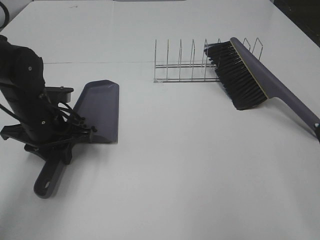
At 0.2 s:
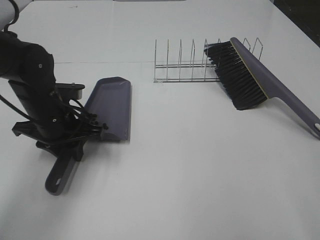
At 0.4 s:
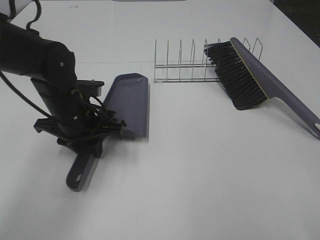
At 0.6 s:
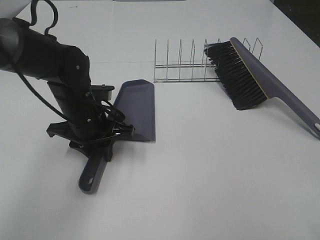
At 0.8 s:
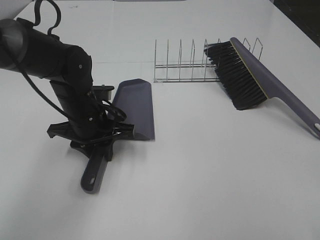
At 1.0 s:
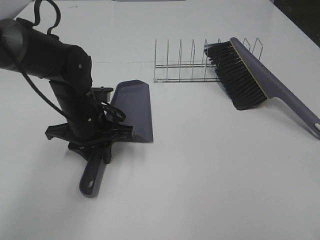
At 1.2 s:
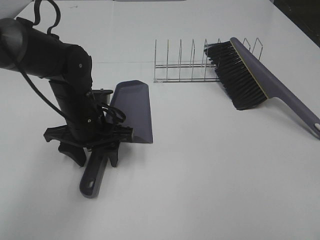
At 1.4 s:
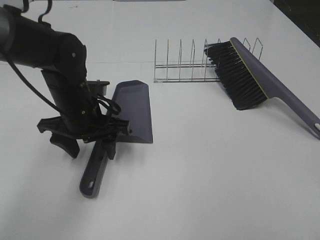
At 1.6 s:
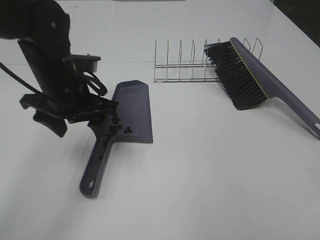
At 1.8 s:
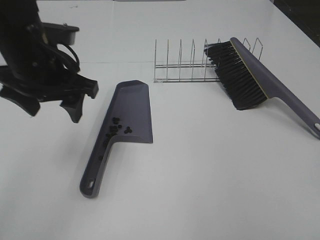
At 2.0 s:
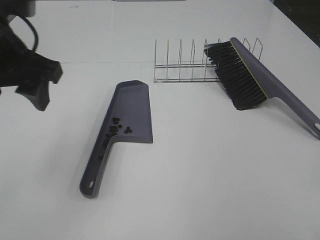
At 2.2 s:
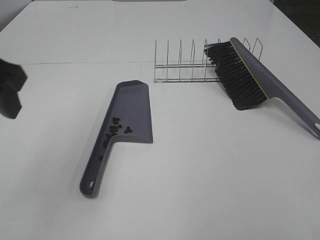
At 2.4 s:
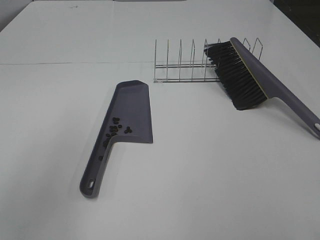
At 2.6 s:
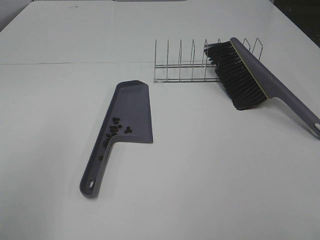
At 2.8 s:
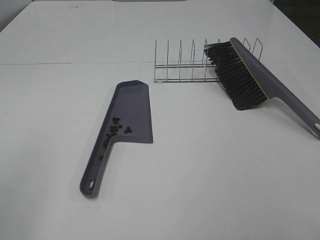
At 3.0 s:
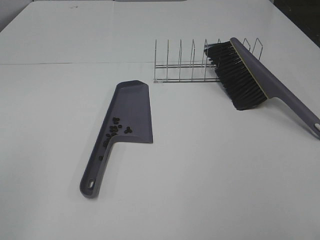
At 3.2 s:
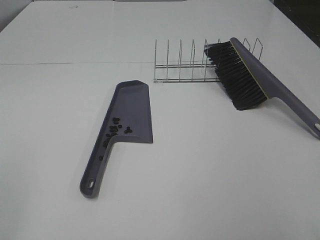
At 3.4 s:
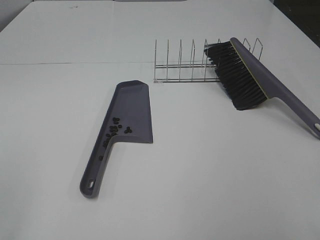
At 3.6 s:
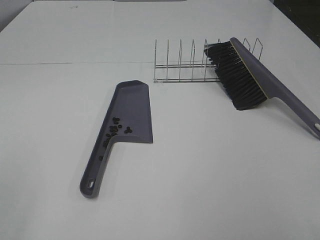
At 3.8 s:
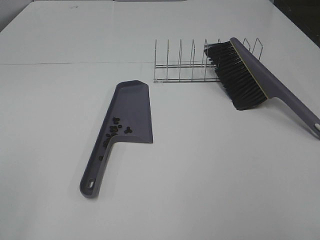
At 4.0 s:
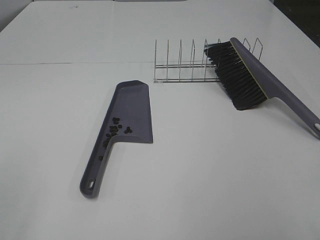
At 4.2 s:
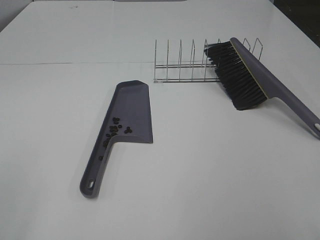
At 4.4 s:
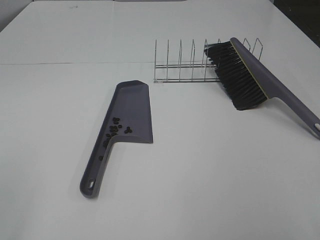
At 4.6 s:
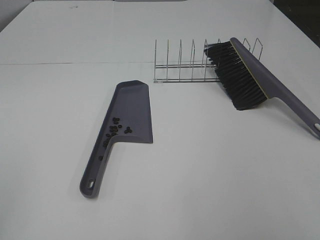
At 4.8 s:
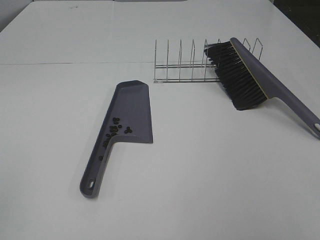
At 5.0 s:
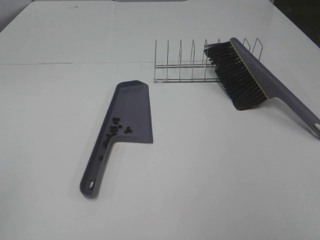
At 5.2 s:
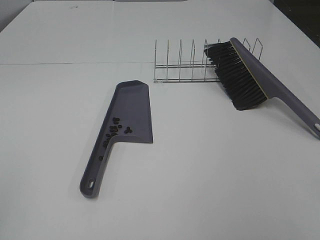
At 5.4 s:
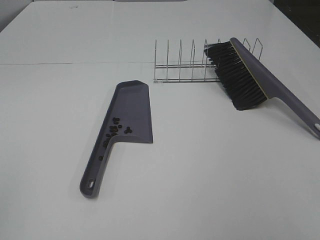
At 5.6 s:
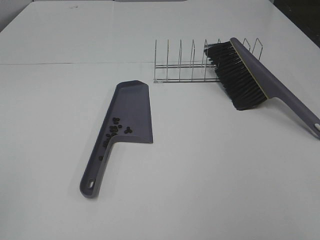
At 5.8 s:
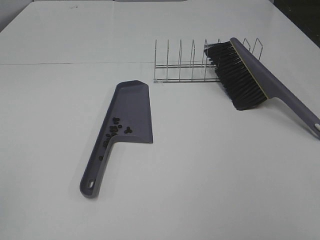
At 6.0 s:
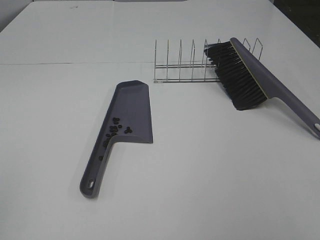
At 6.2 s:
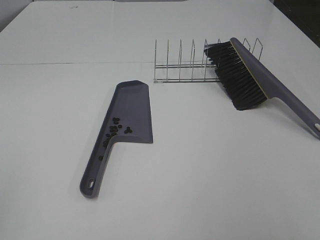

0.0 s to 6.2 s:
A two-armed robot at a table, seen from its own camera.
Task of the whole recording: Sweep Coffee Bean.
0.0 to 1.6 s: The right gripper heads backward, covering approximately 10 cm; the left gripper travels upward and to the right by about 10 cm, and opens.
1.6 to 3.2 s: The left gripper moves backward and to the left, some 35 cm.
